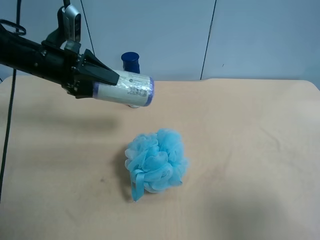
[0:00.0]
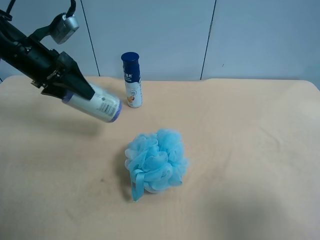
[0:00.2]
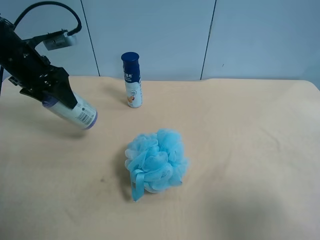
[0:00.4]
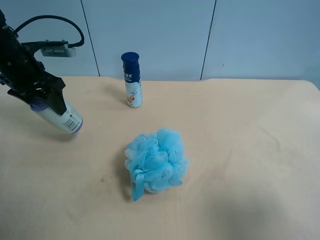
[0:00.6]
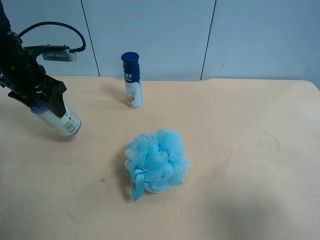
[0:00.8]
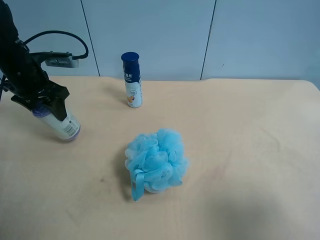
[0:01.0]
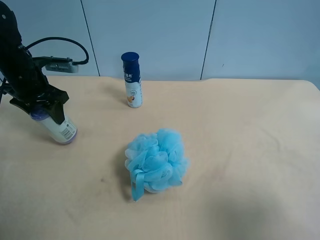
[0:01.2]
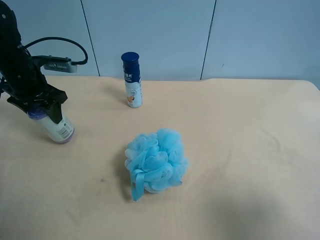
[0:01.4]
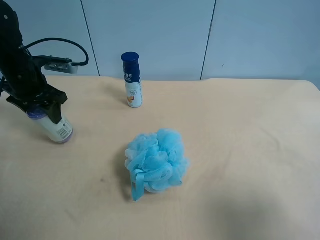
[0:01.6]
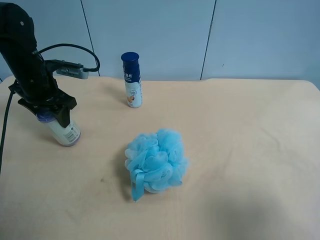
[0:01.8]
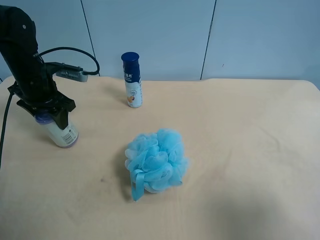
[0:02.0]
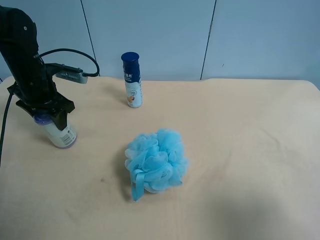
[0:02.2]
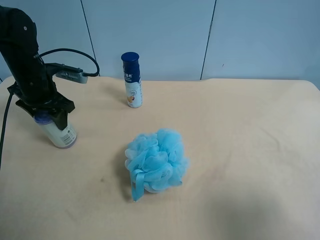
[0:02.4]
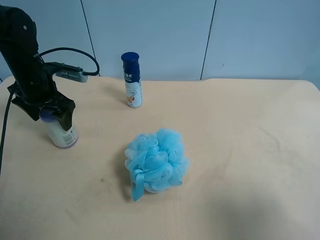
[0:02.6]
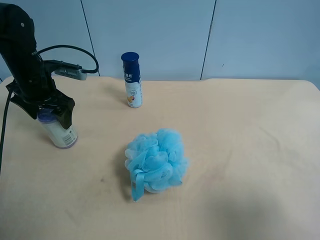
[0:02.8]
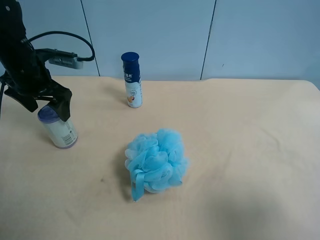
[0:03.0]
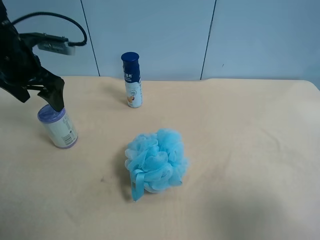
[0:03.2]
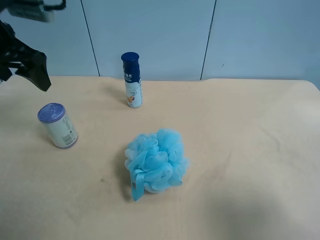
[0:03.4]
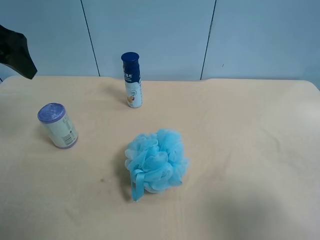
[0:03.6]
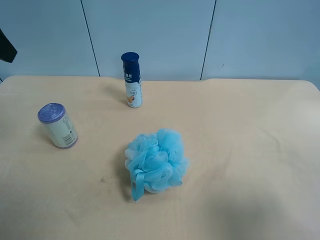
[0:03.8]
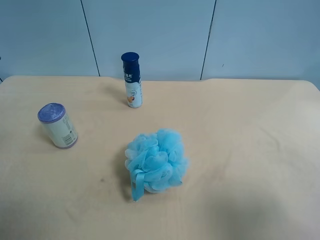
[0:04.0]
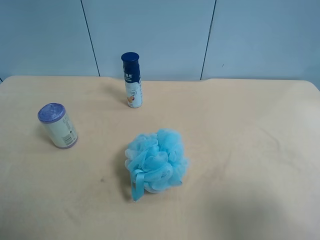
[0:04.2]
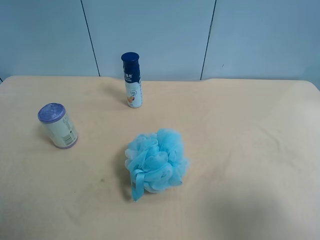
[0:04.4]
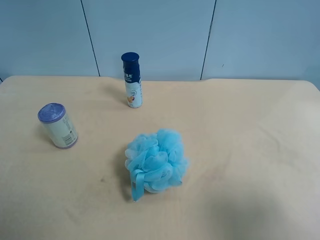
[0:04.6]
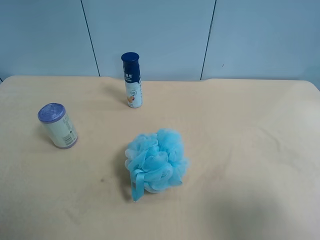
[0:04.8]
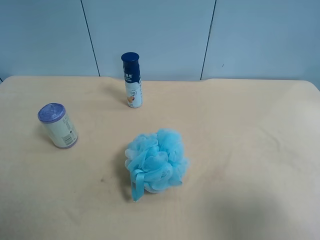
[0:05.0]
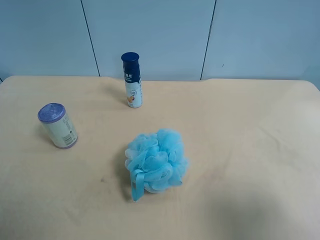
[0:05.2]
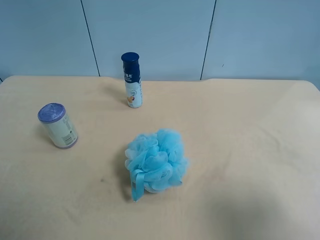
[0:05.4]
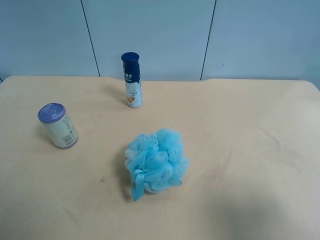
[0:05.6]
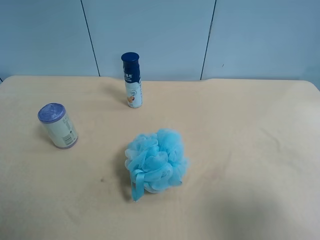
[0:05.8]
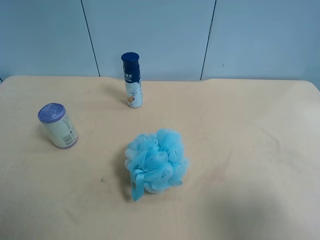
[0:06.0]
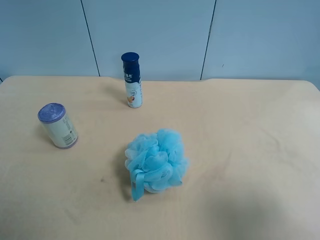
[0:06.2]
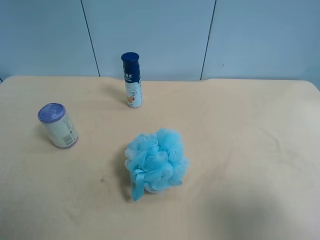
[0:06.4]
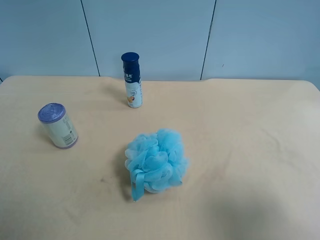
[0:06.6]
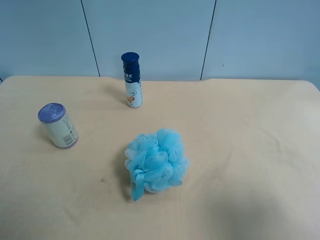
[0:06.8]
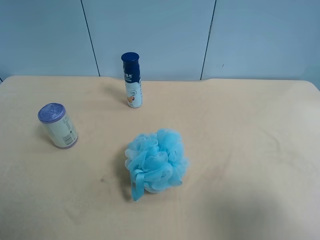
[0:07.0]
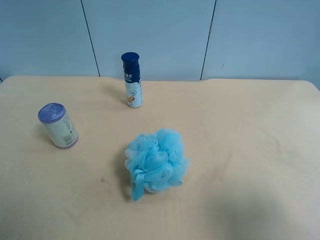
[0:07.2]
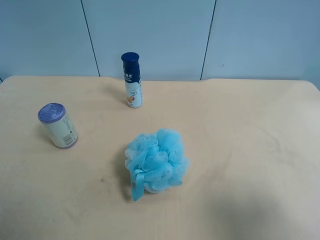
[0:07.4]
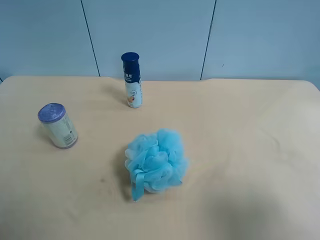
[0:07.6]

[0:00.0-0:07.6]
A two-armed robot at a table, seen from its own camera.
Task of the whole recording: use the right gripper to pick up the item and transfer it from the right gripper to the left gripper.
0:00.0 to 0:01.6: The left gripper ends up some 5 cm from where it was.
0:01.6 to 0:03.0: The left gripper opens.
0:03.0 to 0:04.6: The left gripper goes approximately 30 cm backward.
